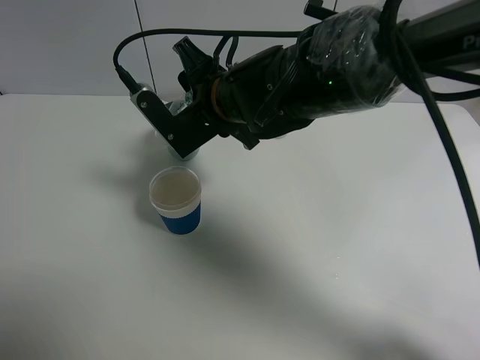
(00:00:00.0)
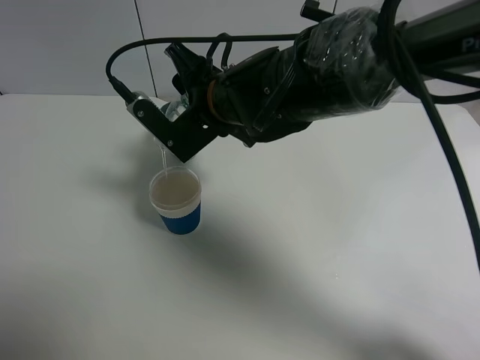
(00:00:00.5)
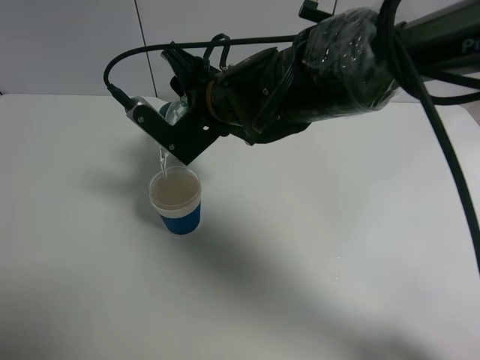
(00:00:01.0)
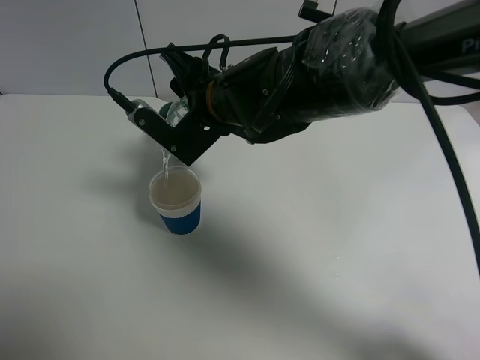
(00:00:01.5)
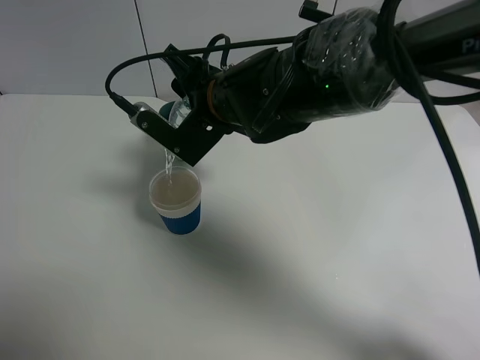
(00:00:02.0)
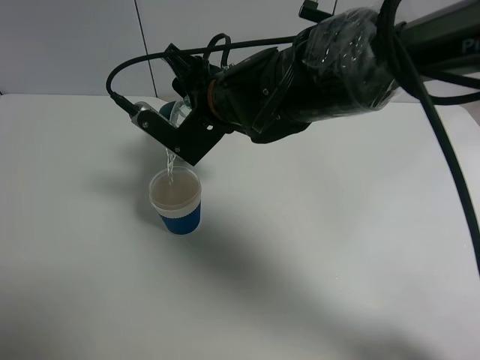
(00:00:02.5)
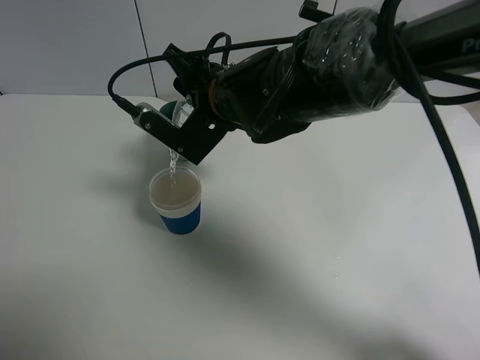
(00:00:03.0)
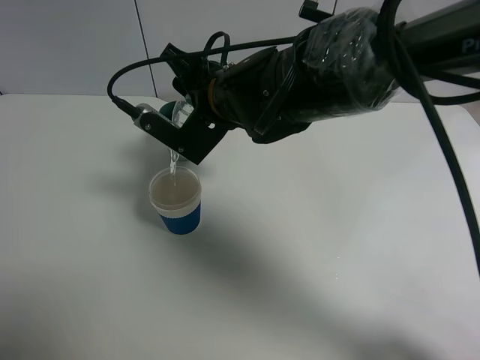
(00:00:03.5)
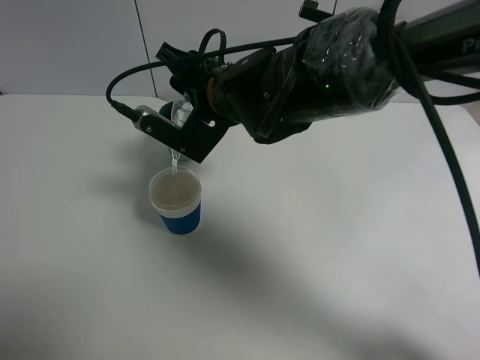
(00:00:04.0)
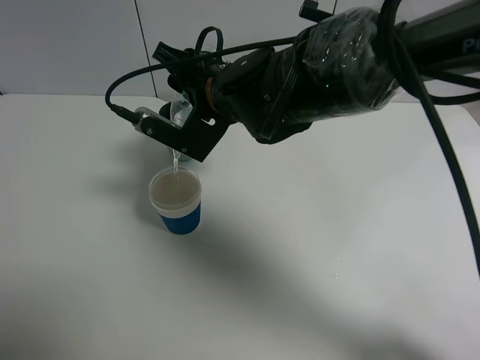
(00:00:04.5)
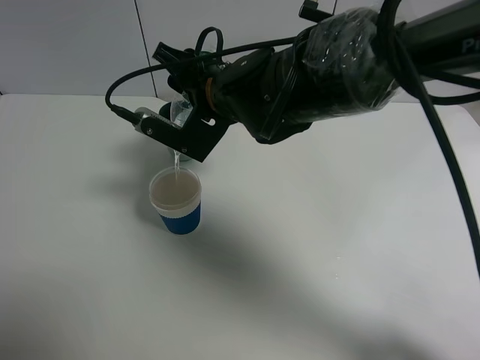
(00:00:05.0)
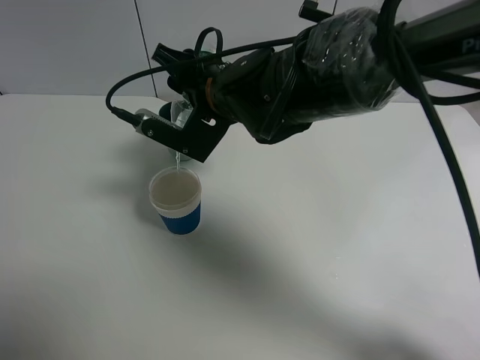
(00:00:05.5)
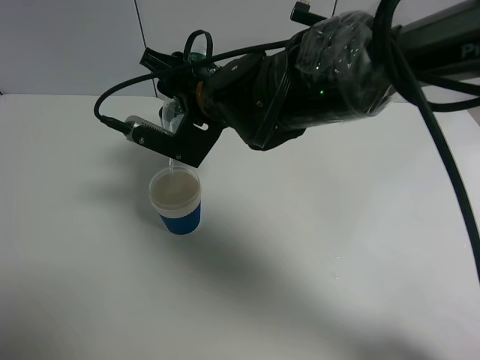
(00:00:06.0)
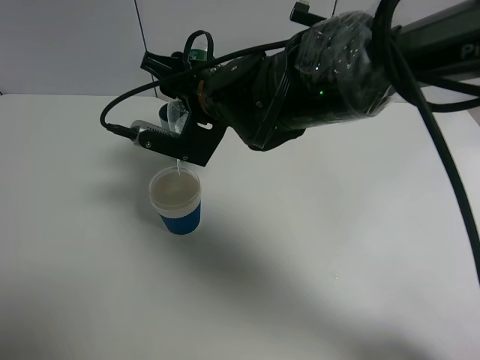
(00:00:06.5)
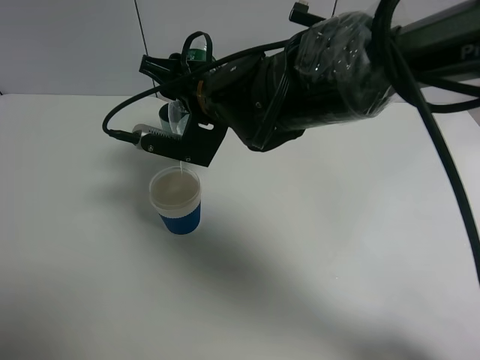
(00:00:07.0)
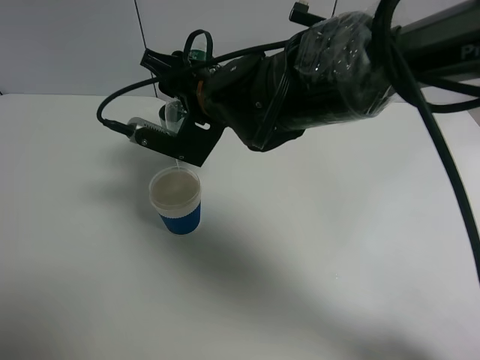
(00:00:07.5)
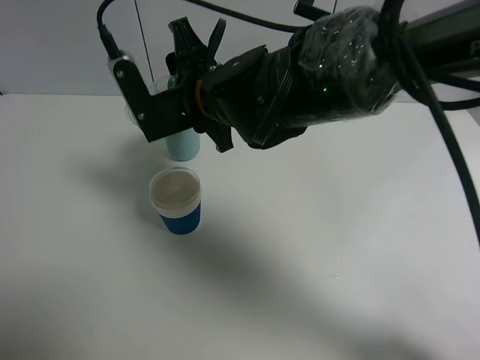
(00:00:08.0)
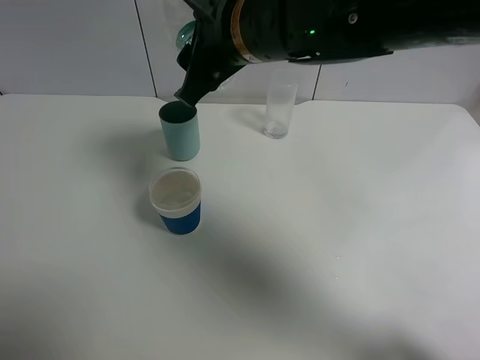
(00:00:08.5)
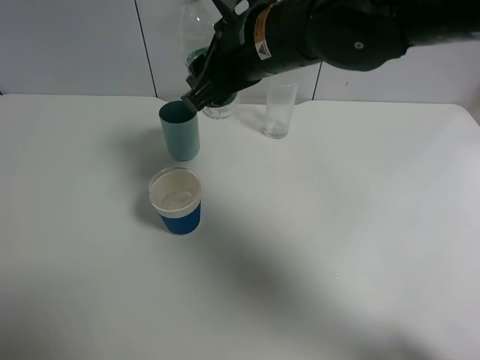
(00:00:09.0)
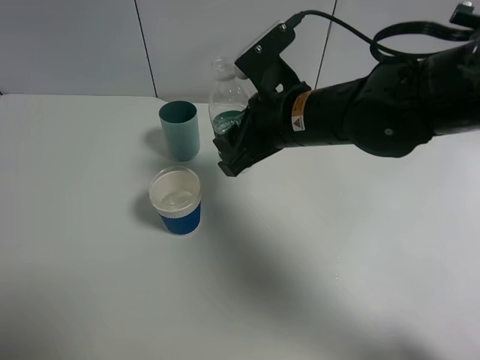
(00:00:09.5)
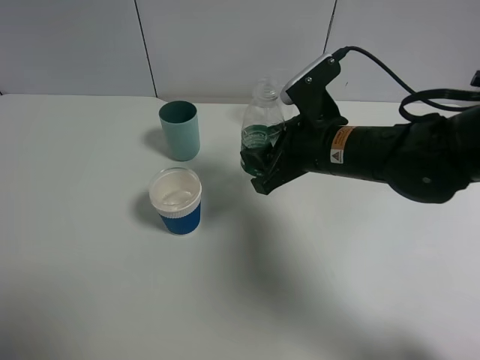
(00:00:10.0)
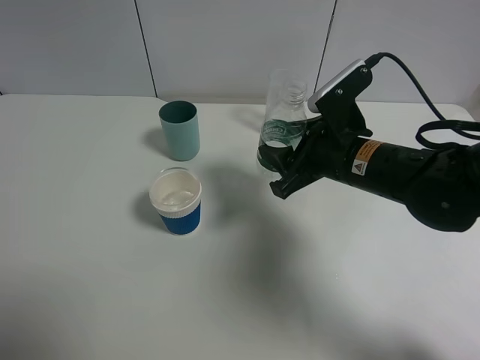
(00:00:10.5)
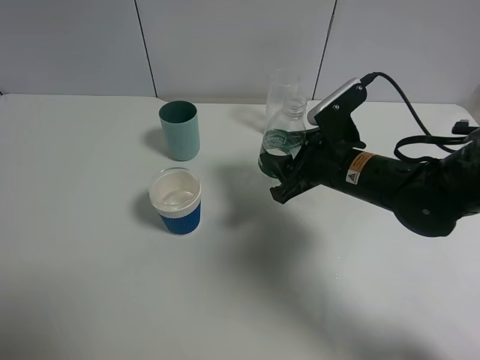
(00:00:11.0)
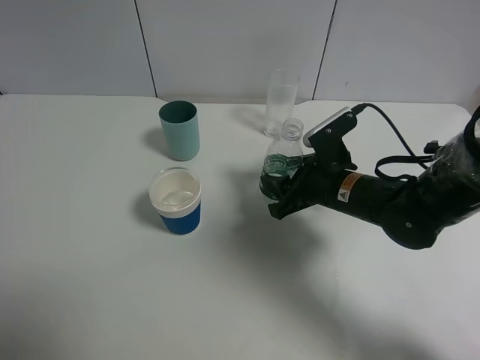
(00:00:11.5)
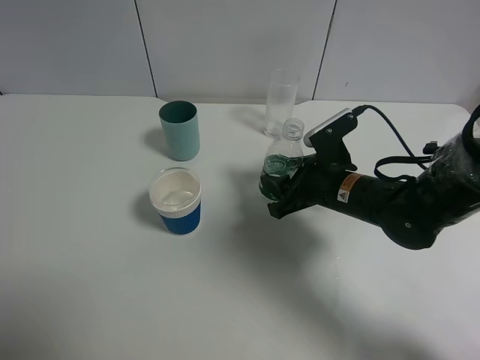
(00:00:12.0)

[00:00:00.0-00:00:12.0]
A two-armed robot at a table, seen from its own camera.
Task of the whole recording: use a gripper to hold the bottle of the drink and pour it into a random cup.
Step, 00:00:00.0 to 00:00:08.0: Pour the mineral water into the paper cup with the right gripper.
00:00:00.0 to 00:00:04.0: The grippers make only small movements.
00:00:04.0 to 00:00:06.0: The grippers move only a little.
00:00:08.0 to 00:00:10.0: The right gripper goes about 15 cm to the right.
00:00:10.0 to 00:00:12.0: The right gripper is displaced downward by approximately 10 cm.

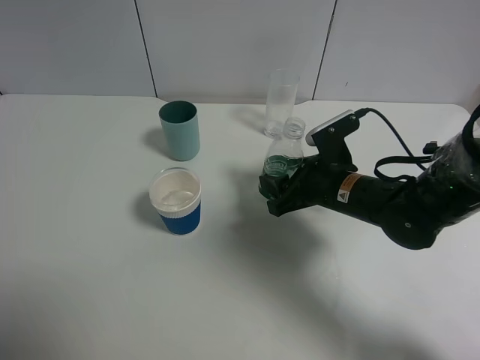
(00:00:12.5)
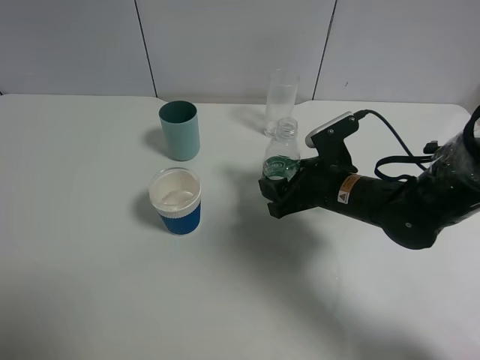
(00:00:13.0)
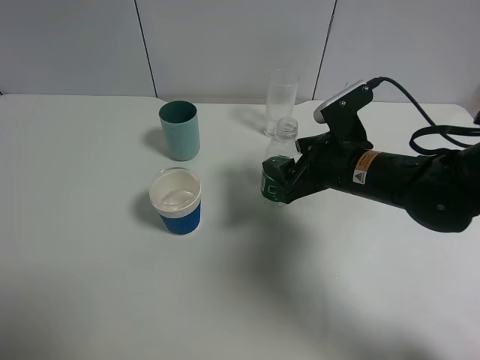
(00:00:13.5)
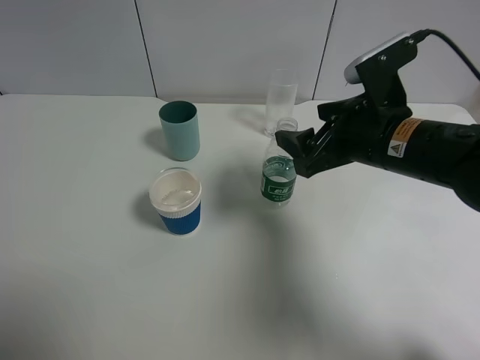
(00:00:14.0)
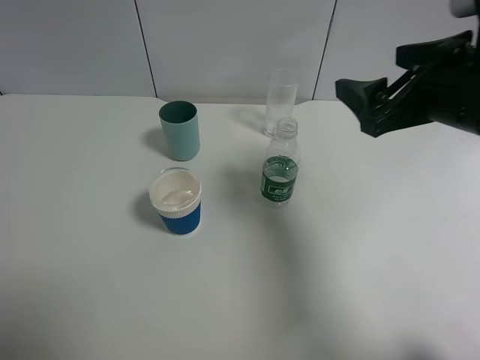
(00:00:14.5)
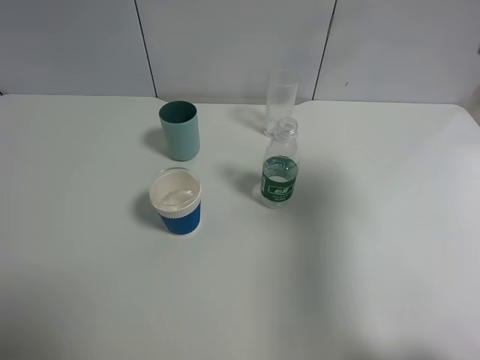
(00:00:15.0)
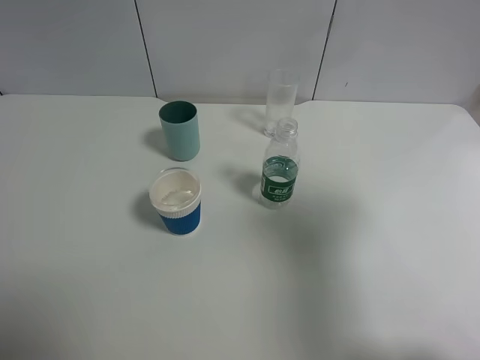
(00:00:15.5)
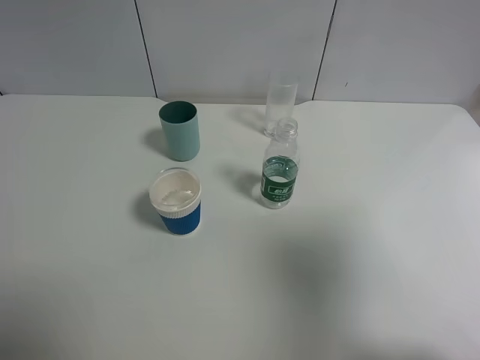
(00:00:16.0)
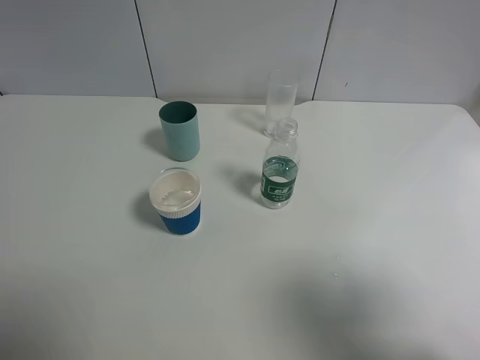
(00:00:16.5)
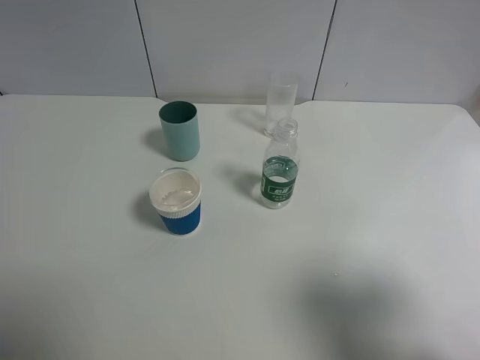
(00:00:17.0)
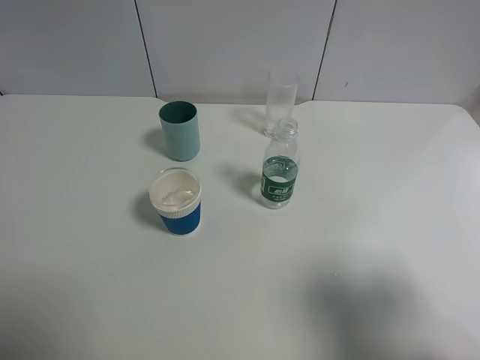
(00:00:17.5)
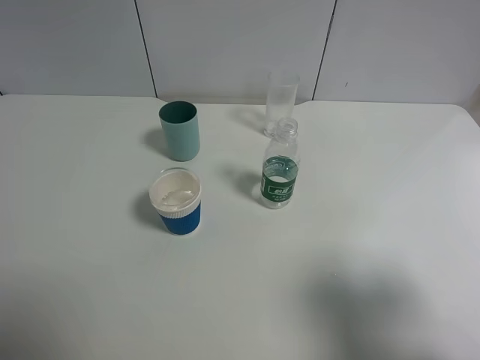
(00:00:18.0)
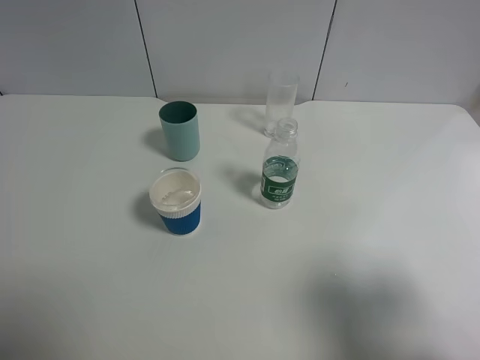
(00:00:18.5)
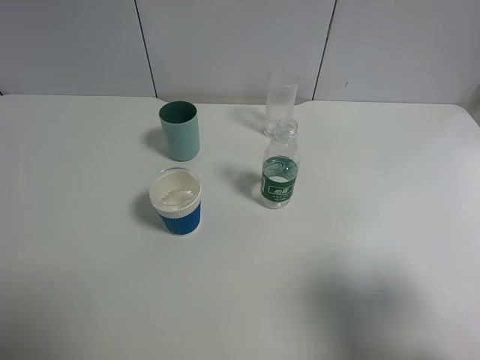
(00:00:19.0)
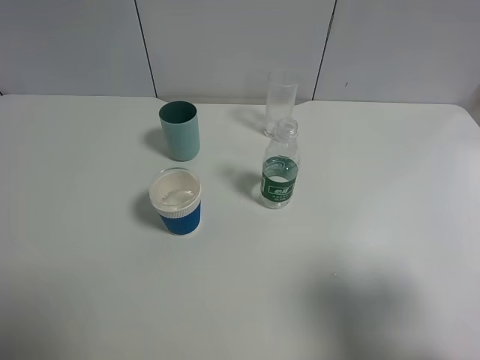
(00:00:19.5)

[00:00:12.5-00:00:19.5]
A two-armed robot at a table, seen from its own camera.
Task of the whole recording: use a gripper to hold the bottle of the drink and pour it into a random cup.
00:00:12.5 to 00:00:14.5: The right gripper travels upward by about 20 cm, and opens up.
00:00:14.5 to 00:00:16.0: The right gripper goes about 20 cm backward, upward and to the right.
00:00:16.0 to 00:00:17.5: The right gripper travels downward by some 10 cm.
00:00:17.5 to 00:00:19.5: Both grippers stay about where they are.
